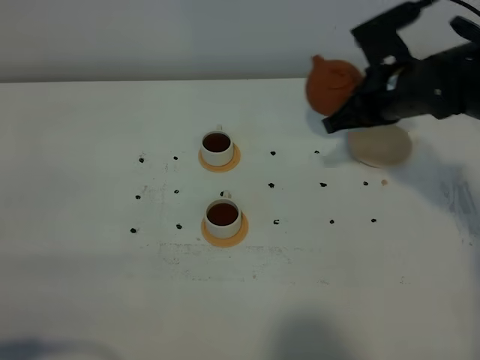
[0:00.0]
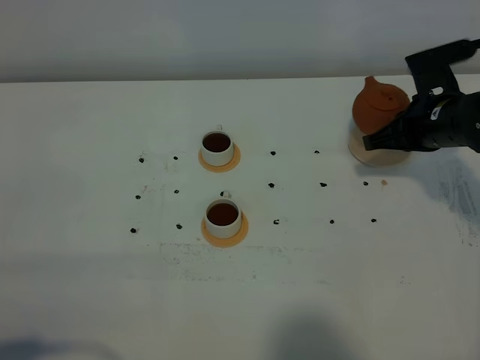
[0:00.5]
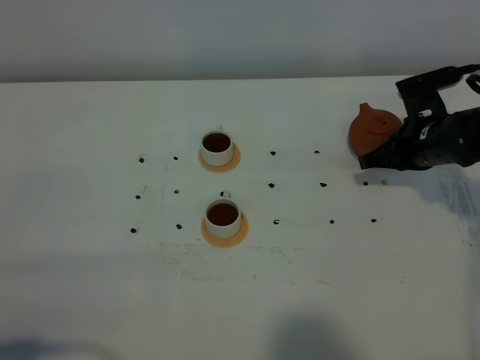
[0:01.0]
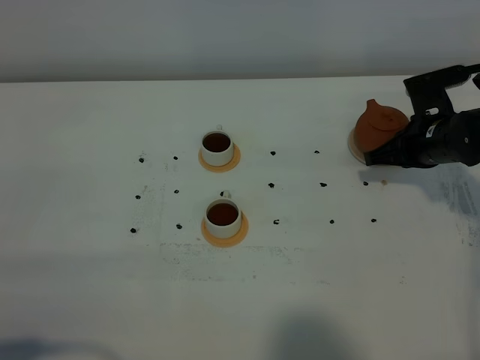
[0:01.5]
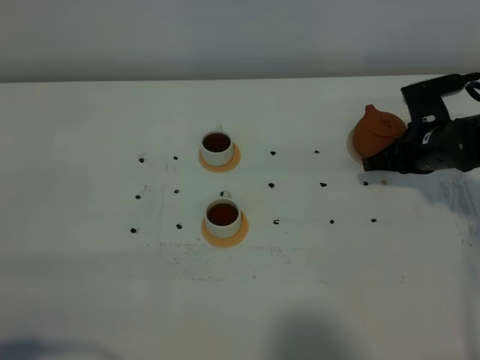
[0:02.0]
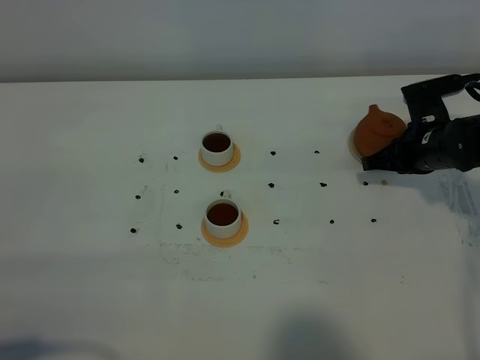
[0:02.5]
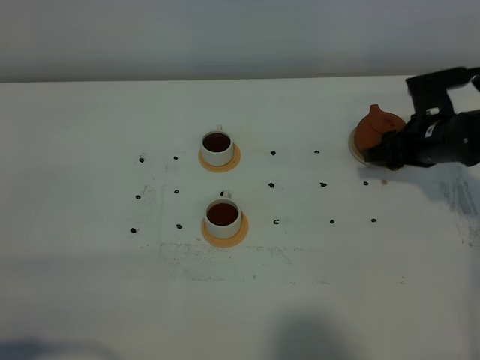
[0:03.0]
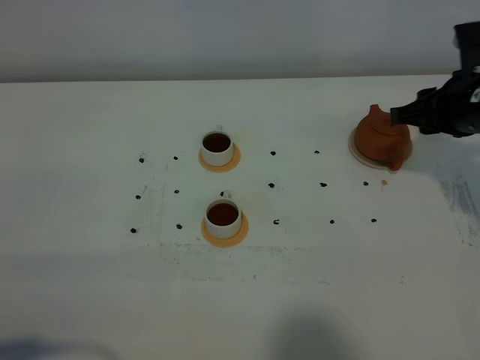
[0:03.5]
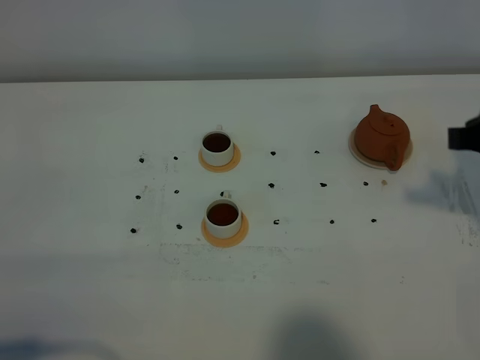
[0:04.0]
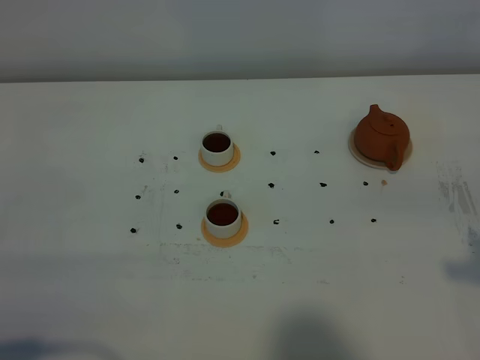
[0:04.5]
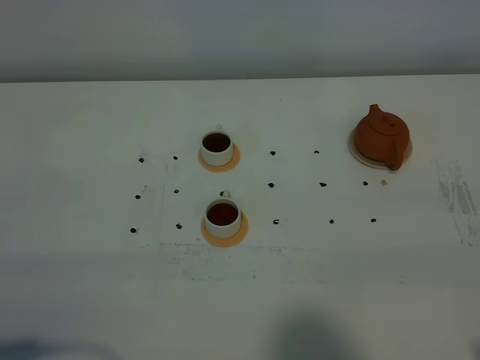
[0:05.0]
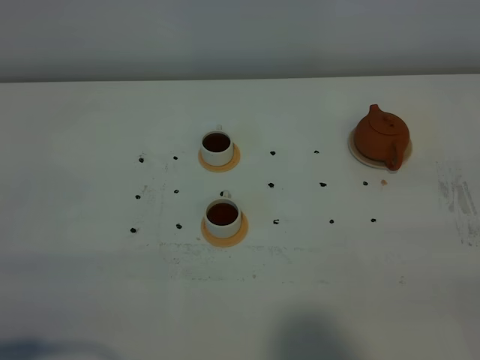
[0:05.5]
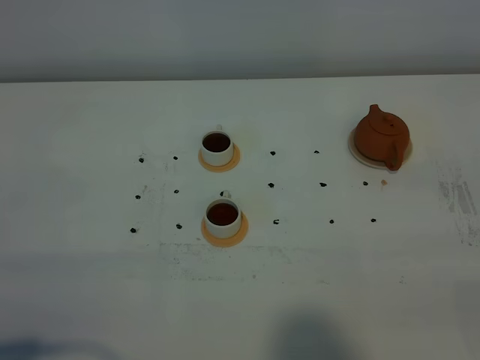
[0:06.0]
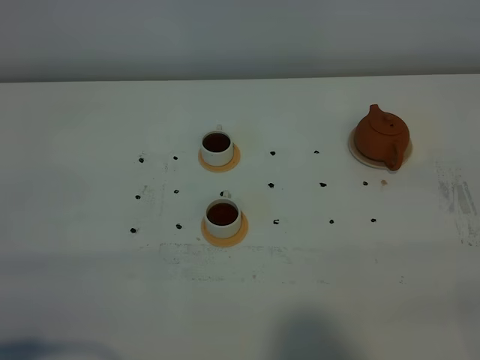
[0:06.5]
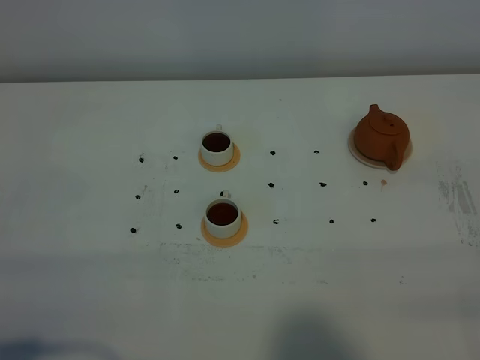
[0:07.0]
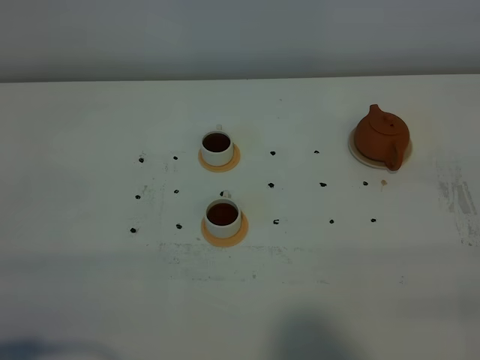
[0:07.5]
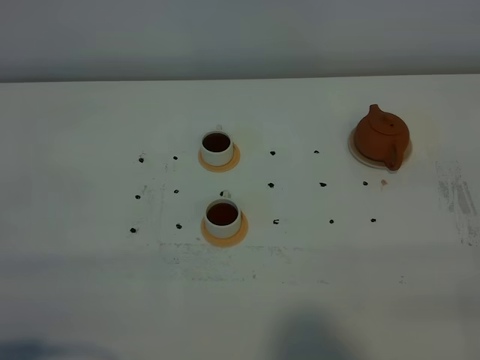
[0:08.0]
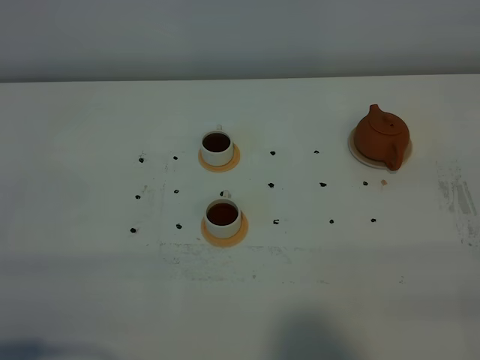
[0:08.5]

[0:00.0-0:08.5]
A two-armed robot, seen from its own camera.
Task of the whole recording: grasp the brown teapot and pour the tea into the two white teacups one by one, put the brown teapot back in its original place.
0:00.0 to 0:02.0: The right gripper moves downward and to the right, some 10 cm.
0:02.0 to 0:04.0: The right gripper travels upward and backward by approximately 25 cm, and opens its fingers.
0:04.0 to 0:06.5: The right gripper heads backward, covering approximately 25 cm.

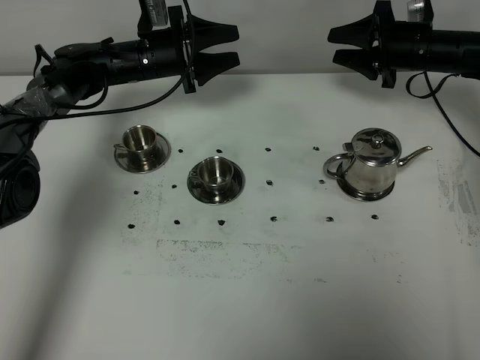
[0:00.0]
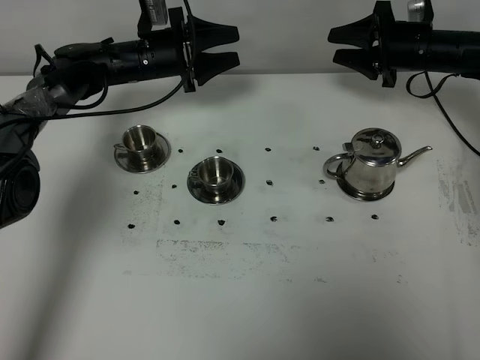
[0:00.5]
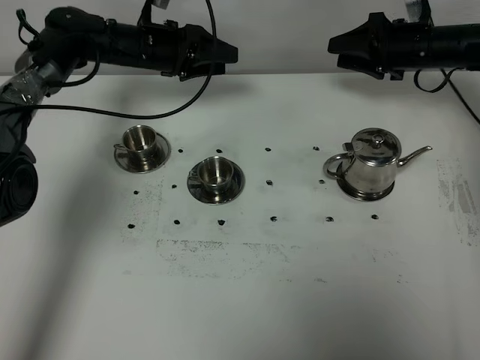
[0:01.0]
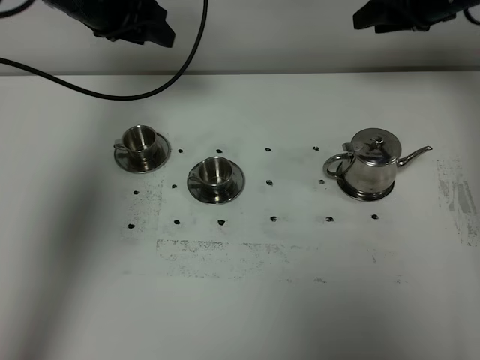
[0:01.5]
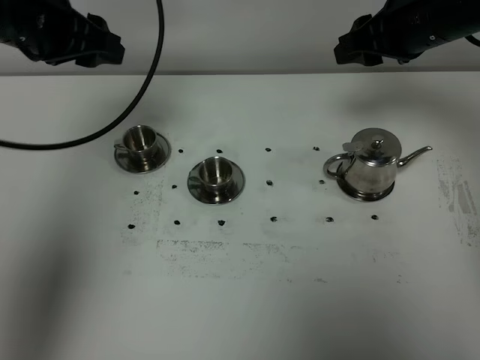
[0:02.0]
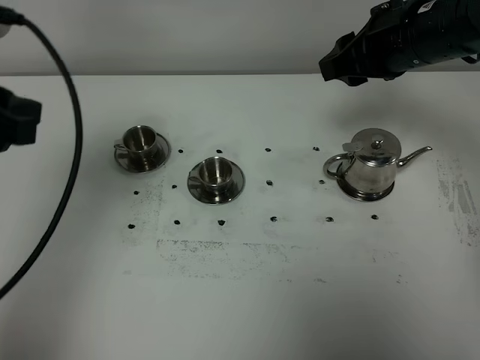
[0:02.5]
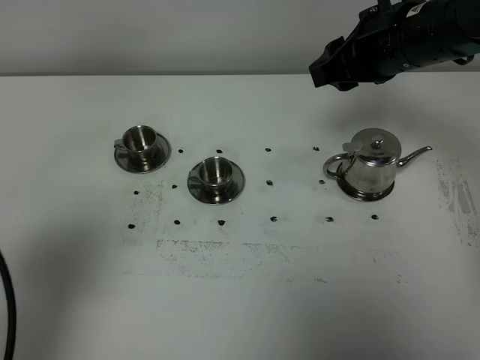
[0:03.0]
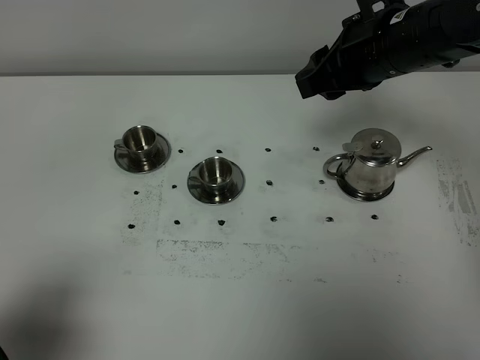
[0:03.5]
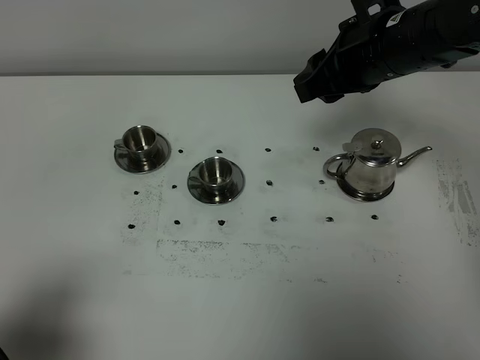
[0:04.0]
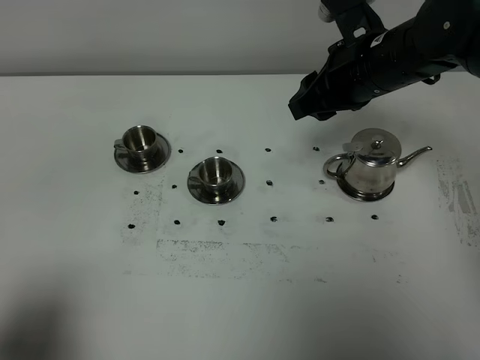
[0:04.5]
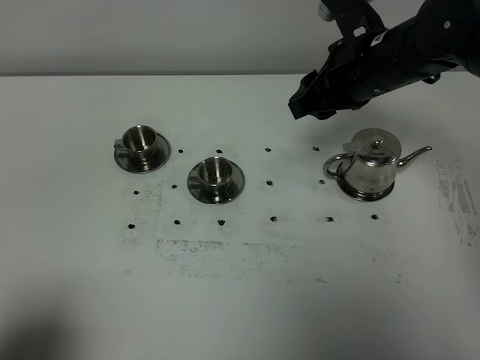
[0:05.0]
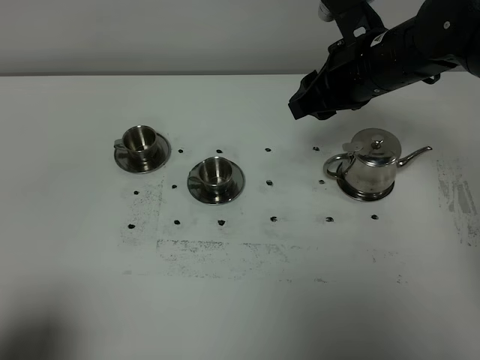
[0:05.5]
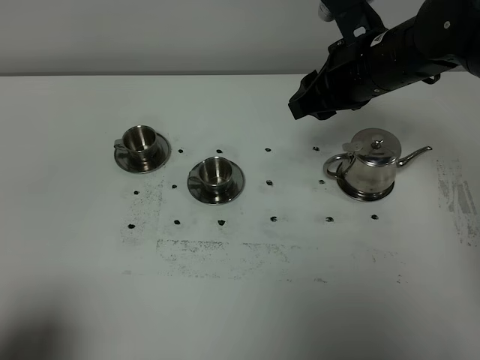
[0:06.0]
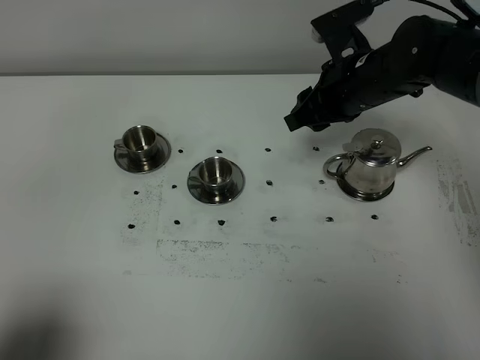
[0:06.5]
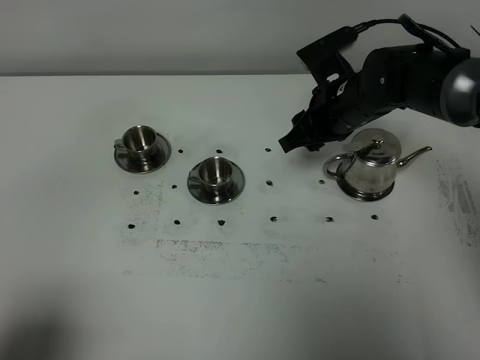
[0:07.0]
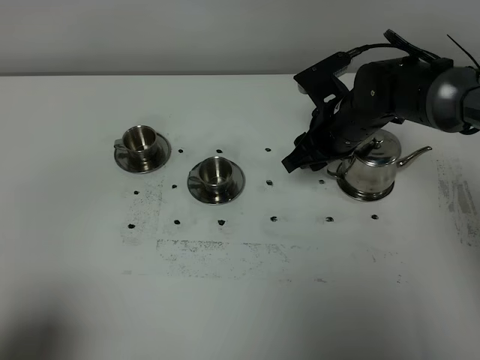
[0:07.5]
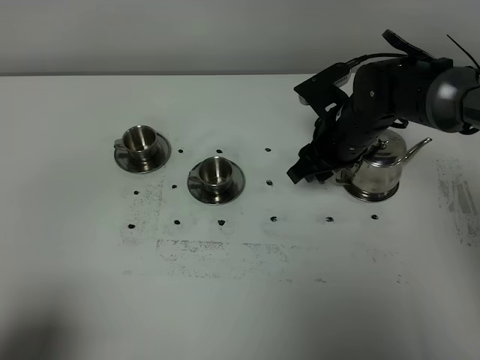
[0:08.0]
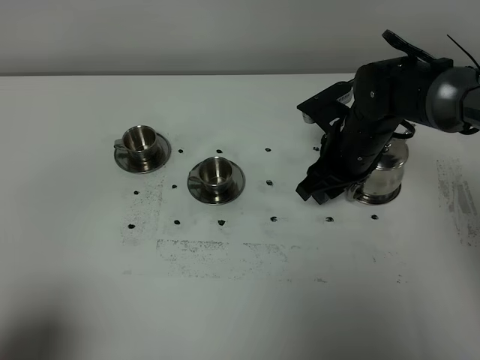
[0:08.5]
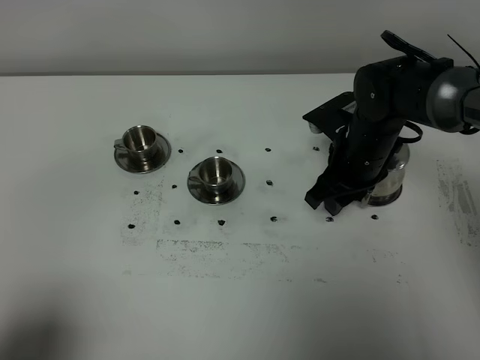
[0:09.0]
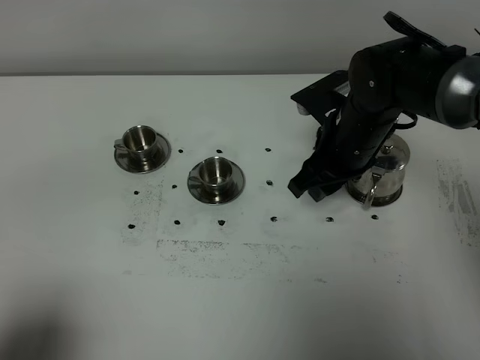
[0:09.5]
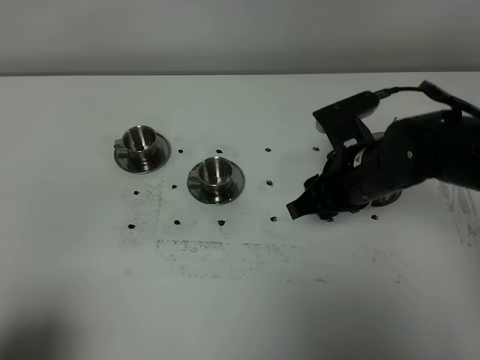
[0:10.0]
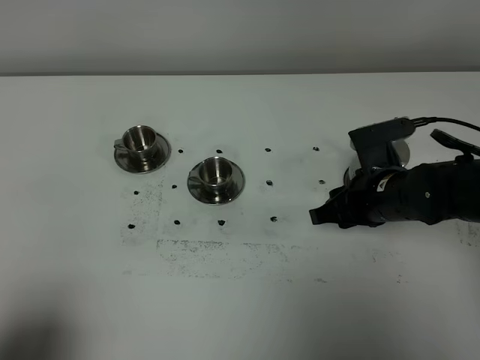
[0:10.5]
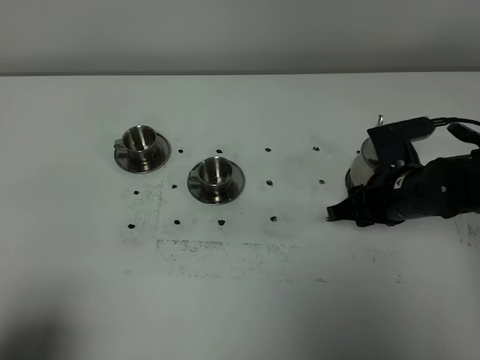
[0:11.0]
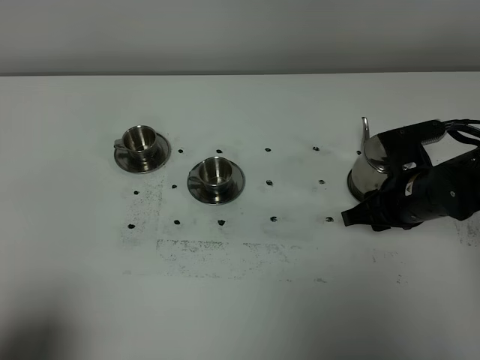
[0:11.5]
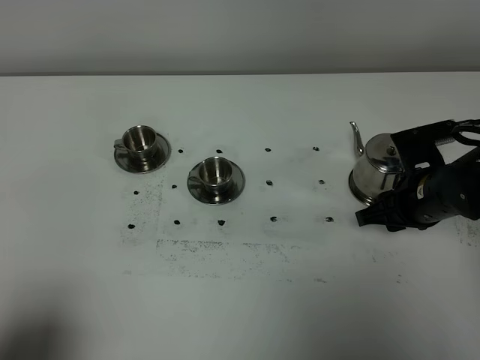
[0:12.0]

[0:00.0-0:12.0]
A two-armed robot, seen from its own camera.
Task of the whole recording: grasp the stainless steel teapot and pour the tea into the two stainless steel teacups one by one, put the stainless steel teapot back in its original place.
0:00.0 to 0:02.0: The right gripper travels upward, backward and to the left by approximately 20 cm, while the left gripper heads upward and backward, covering about 25 cm.
0:02.0 to 0:04.0: The left gripper shifts about 35 cm backward. The right gripper heads to the left, covering about 5 cm.
0:04.0 to 0:06.0: The grippers stay close to where they were, moving slightly.
0:06.0 to 0:08.0: The right gripper is displaced downward by some 10 cm.
0:08.0 to 0:10.0: The right gripper moves backward, some 10 cm.
0:10.0 to 0:12.0: The right gripper is displaced to the right by some 10 cm.

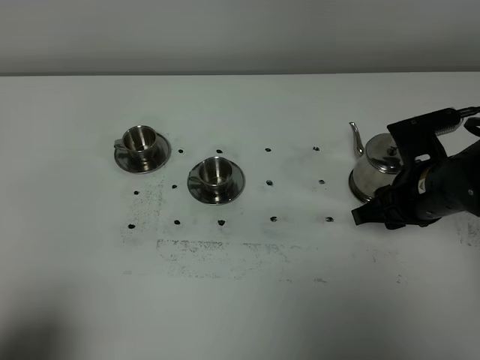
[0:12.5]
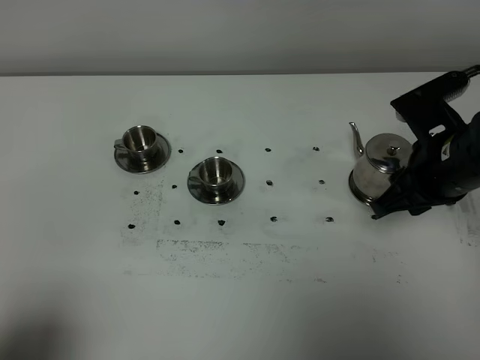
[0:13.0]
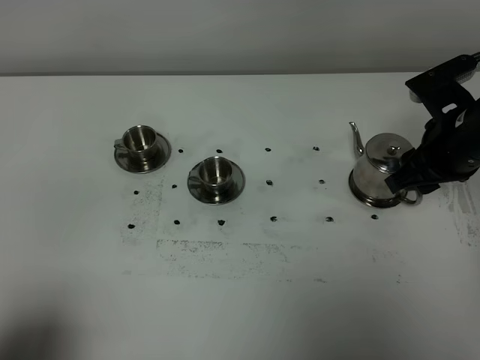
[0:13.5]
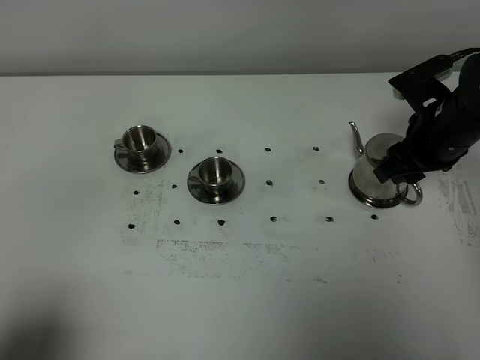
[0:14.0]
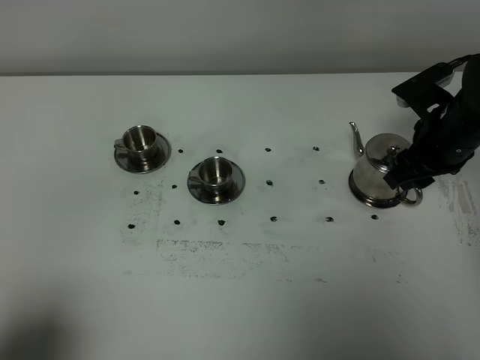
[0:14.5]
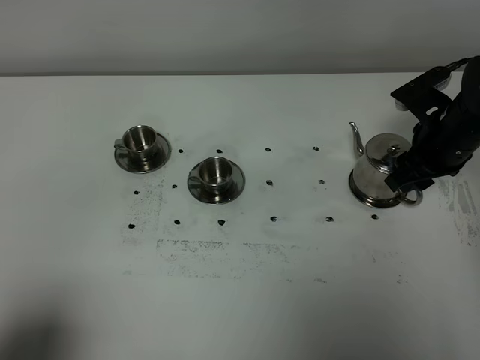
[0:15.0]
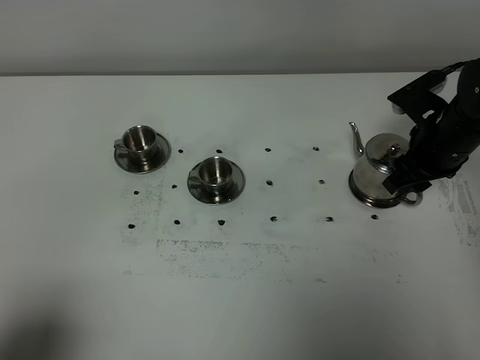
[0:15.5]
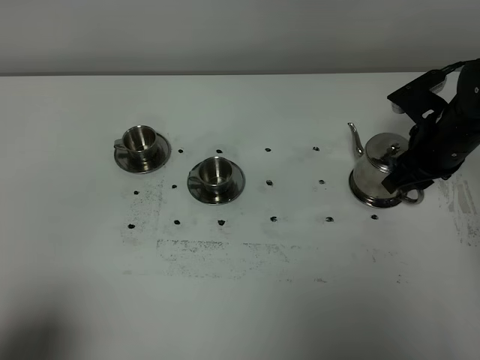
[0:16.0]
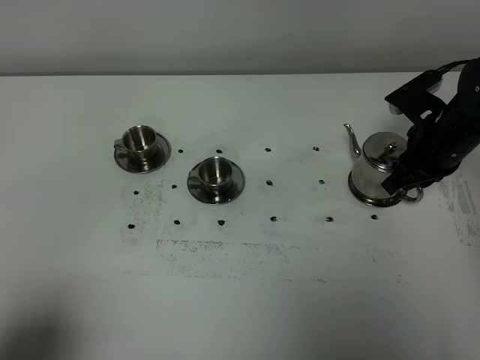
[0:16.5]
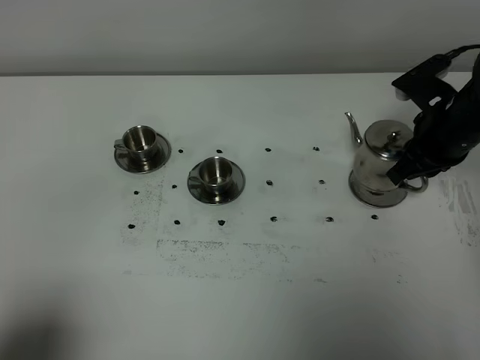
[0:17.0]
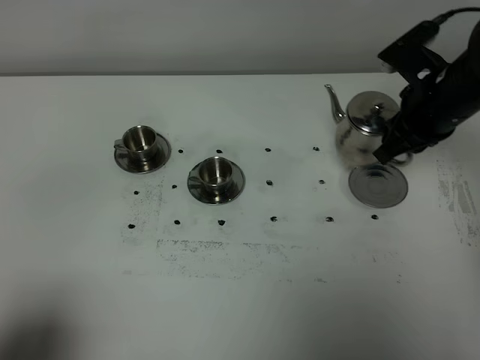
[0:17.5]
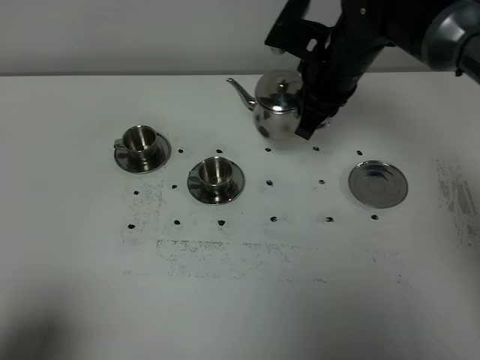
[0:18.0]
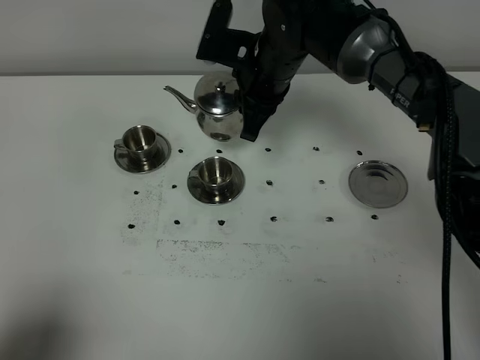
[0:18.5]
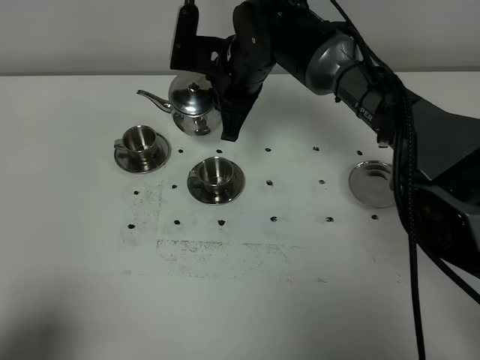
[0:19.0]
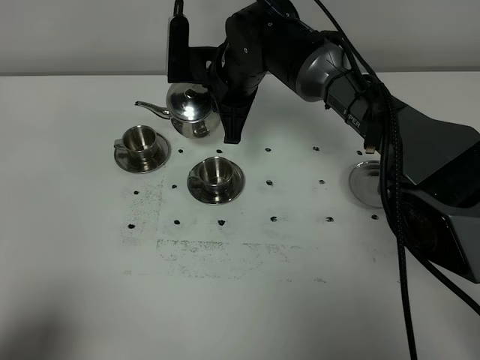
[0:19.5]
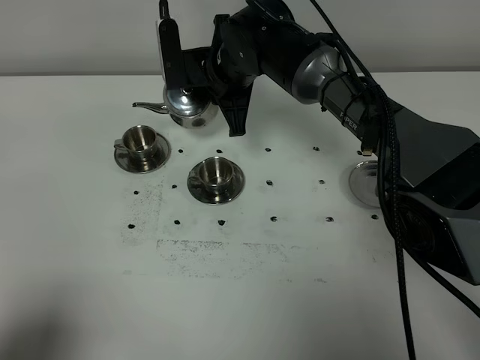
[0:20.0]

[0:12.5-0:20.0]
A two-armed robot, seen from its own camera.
Task of the whole recording: grasp the stainless steel teapot and pour the tea into the two stainless steel teacups one by one, put the stainless steel teapot back in its original place.
Step, 0:12.5 to 0:16.5: Pick up the teapot with the right gripper.
0:12.5 to 0:14.5: The right gripper is displaced forward by roughly 5 cm.
0:14.5 to 0:16.5: The right gripper closes its fingers.
0:16.5 to 0:18.0: The right gripper shifts about 15 cm to the left, upward and forward.
0:18.0 to 0:20.0: The right gripper travels to the left by about 10 cm.
